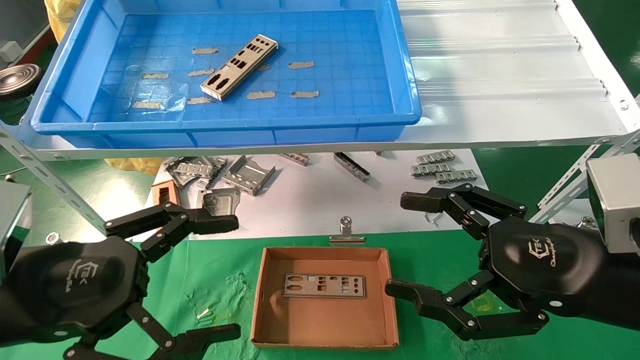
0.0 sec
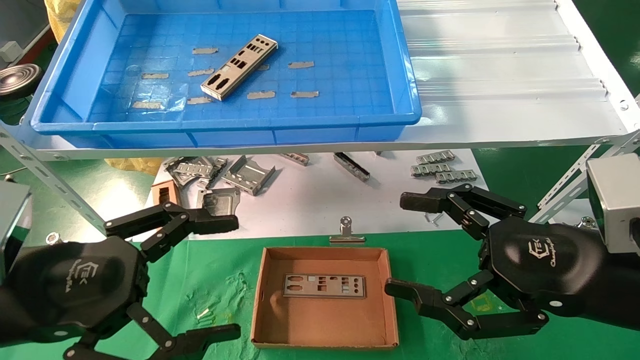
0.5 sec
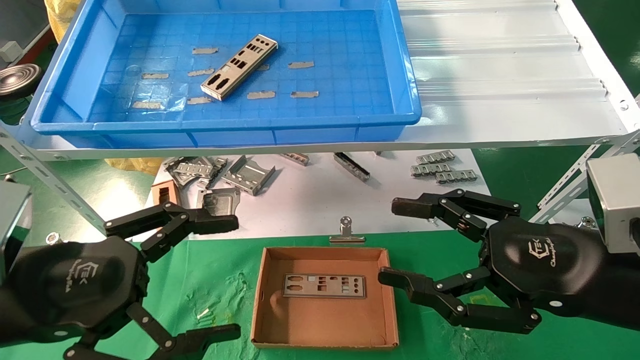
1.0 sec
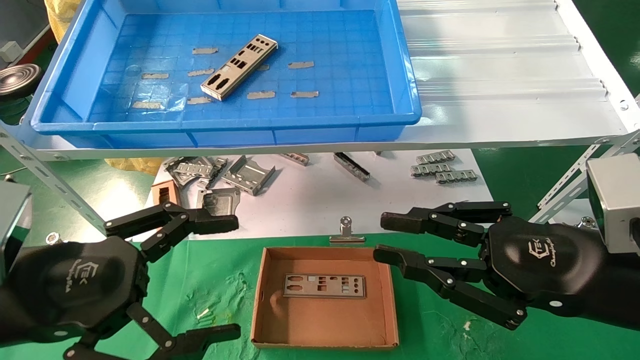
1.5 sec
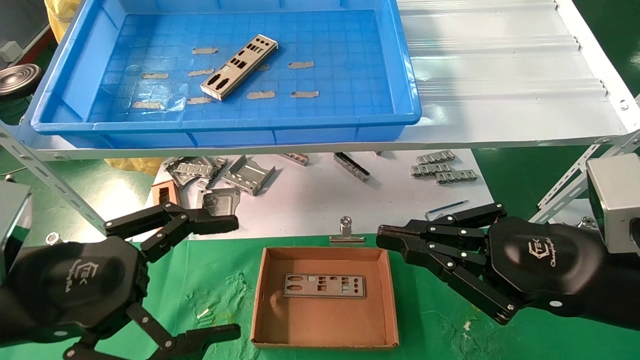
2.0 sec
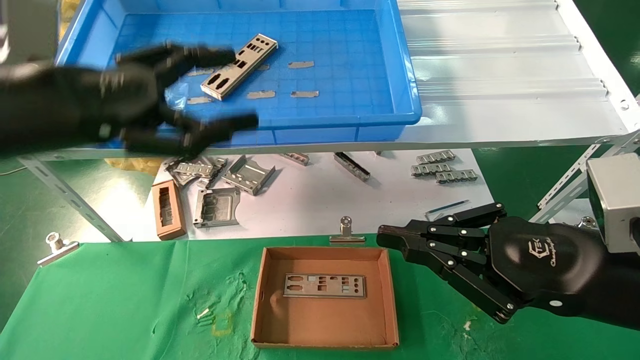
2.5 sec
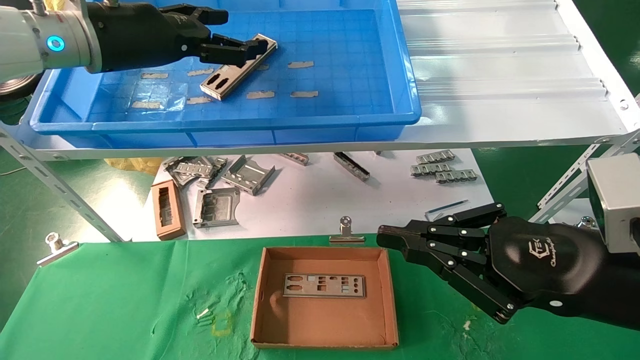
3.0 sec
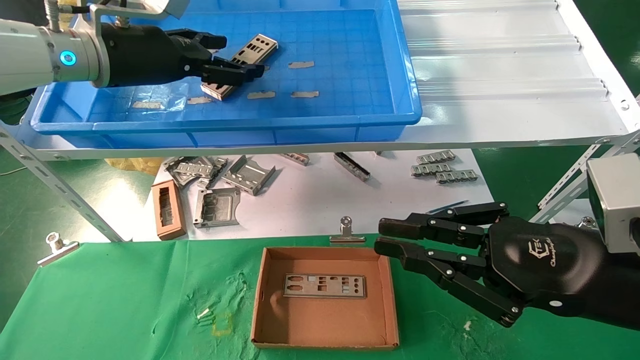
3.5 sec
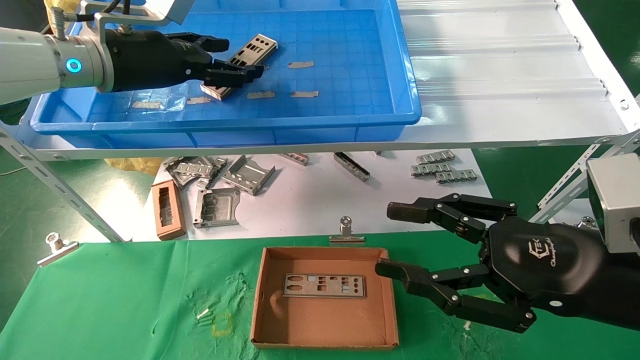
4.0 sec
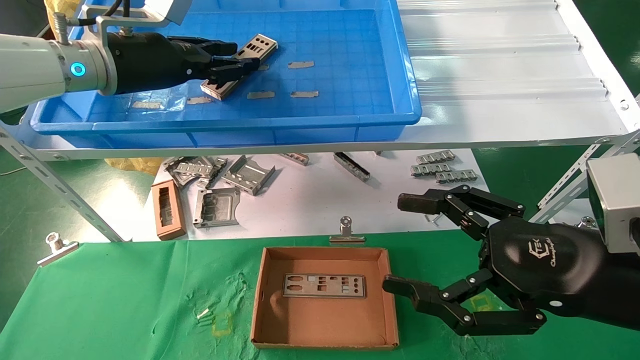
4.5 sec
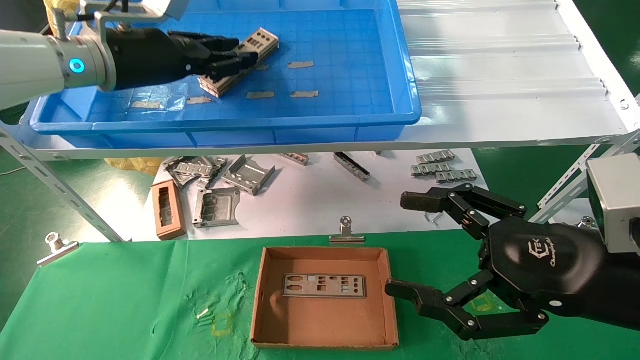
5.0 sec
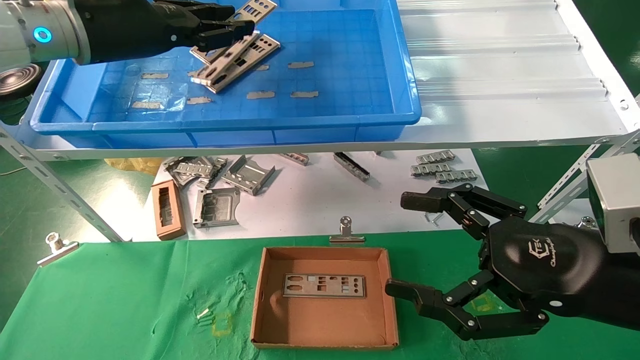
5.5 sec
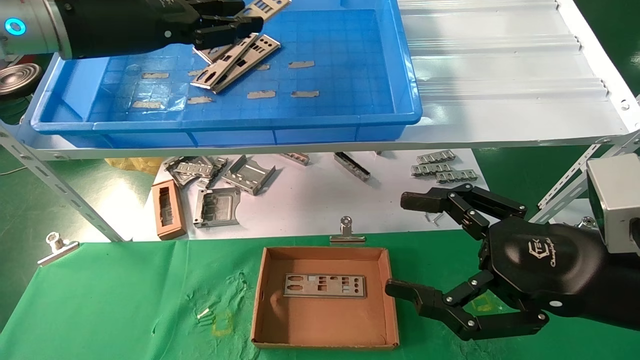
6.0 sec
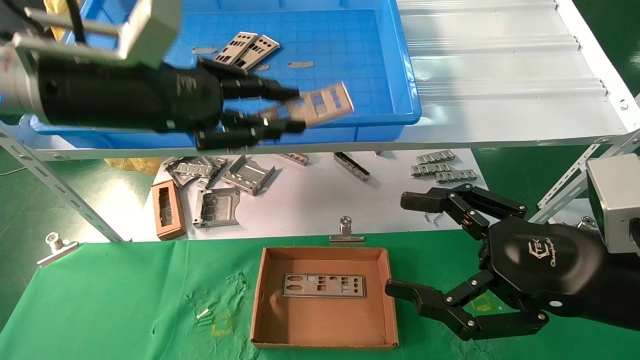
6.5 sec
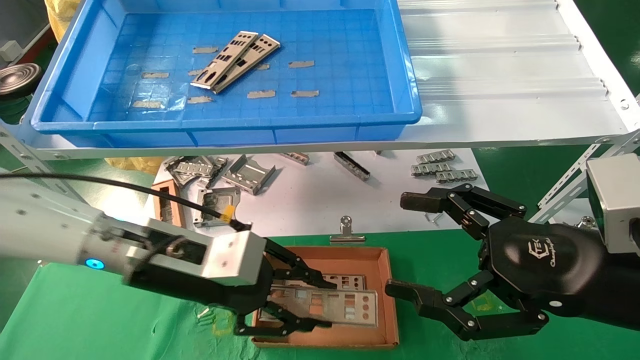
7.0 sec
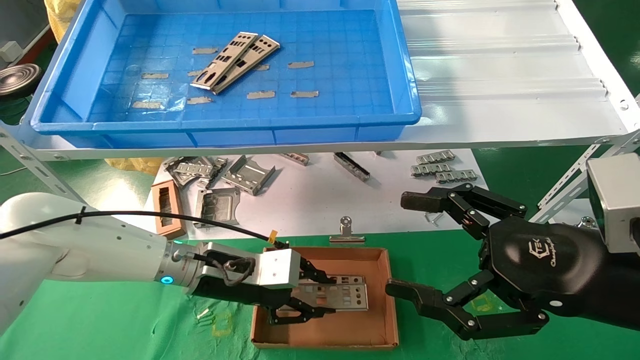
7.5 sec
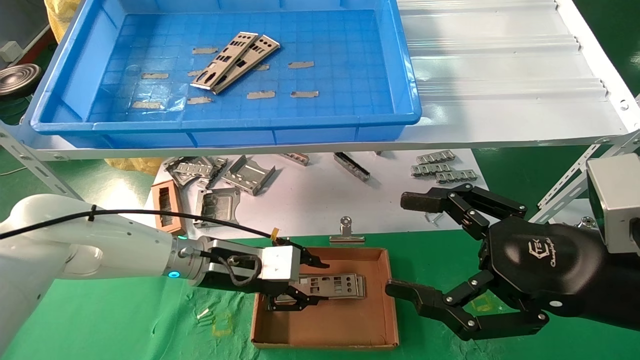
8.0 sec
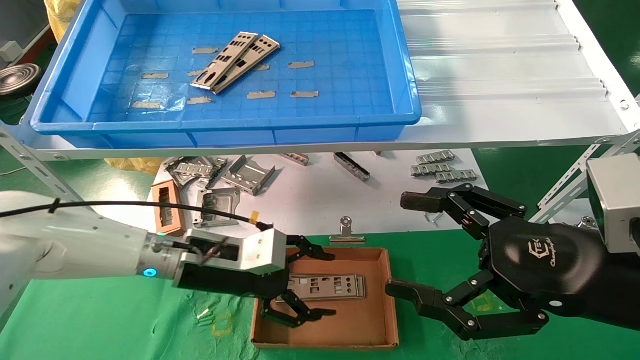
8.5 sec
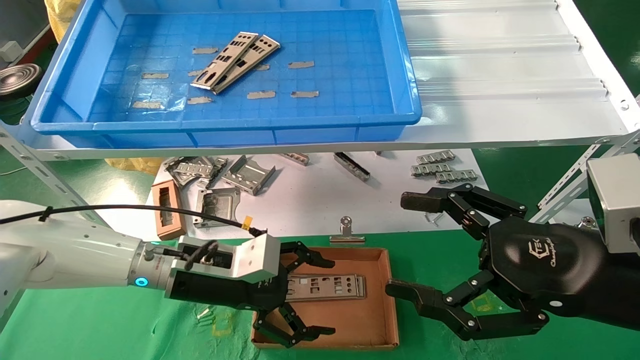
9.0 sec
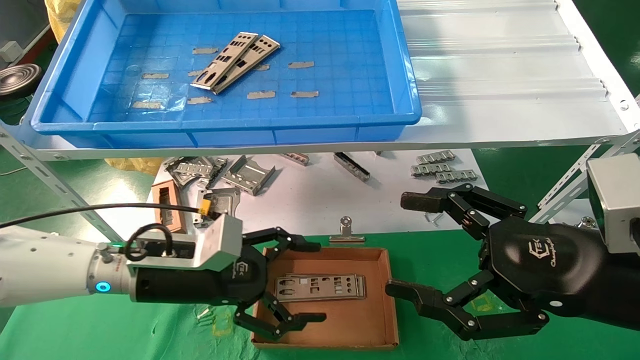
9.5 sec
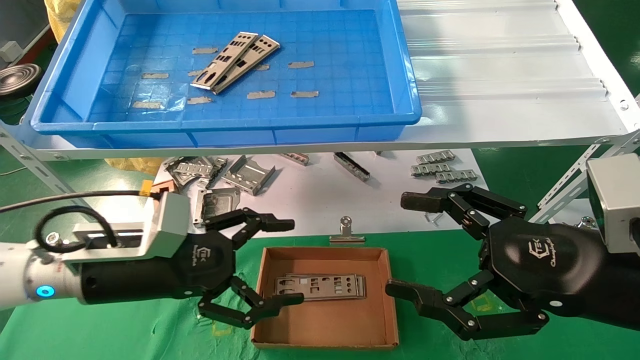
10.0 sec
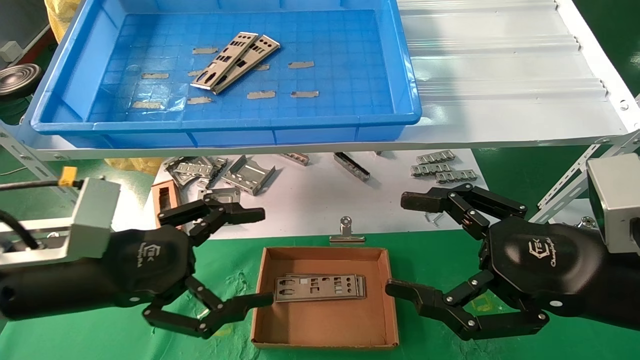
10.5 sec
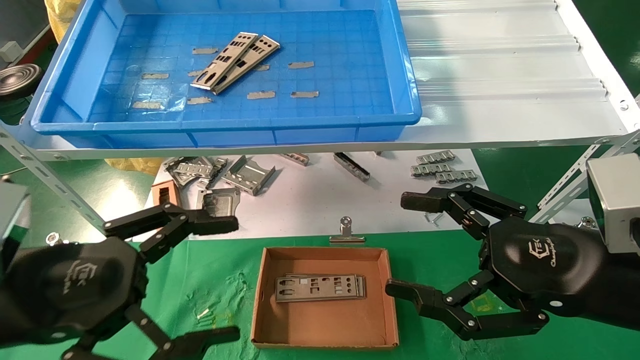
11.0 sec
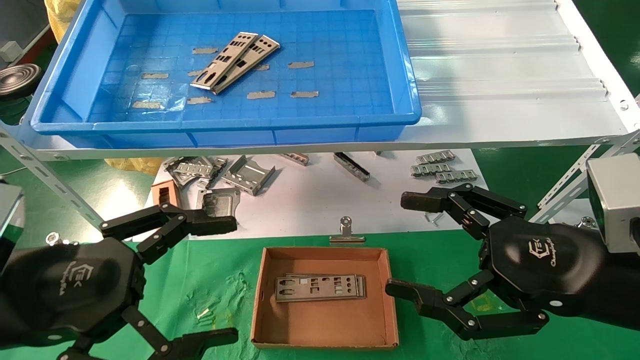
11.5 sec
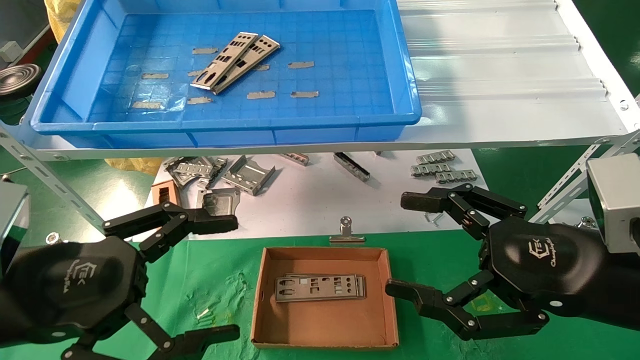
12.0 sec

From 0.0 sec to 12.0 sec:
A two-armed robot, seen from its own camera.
Task of the whole recording: pick up the parts on the tray and put them in the cardboard box.
Step, from 2.5 sec to 4.5 sec: Pick up the IO bracket from the container box.
Step, from 5.0 sec to 7.5 sec: Place the IO bracket into the ingredient slot.
From 0.0 sec to 2.0 sec: The right gripper closes up.
From 2.0 sec to 4.0 sec: The left gripper is displaced forward and upward by some 25 cm, while the right gripper opens up.
From 4.0 sec to 6.0 sec: The left gripper goes some 5 cm backward, and closes its fingers. The right gripper opens.
From 6.0 sec to 8.0 sec: The left gripper shifts approximately 30 cm downward.
From 8.0 sec to 10.0 sec: The left gripper heads backward, to the left and upward, covering approximately 15 cm, and opens.
From 10.0 sec to 12.0 sec: The left gripper is displaced backward by some 10 cm.

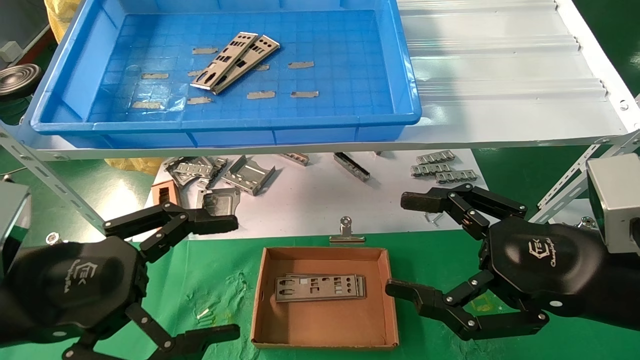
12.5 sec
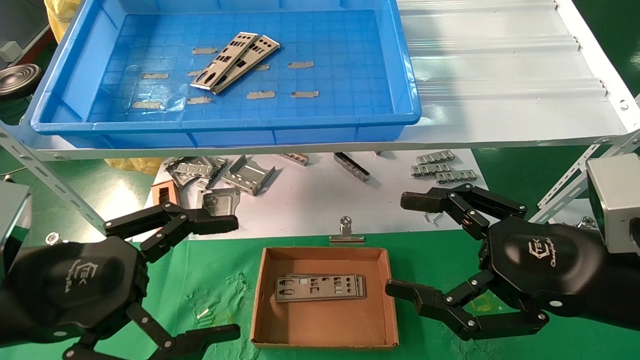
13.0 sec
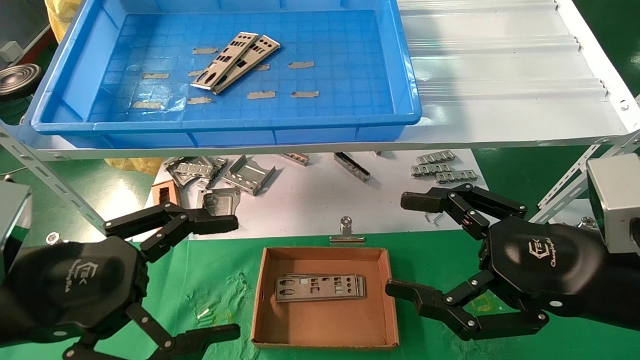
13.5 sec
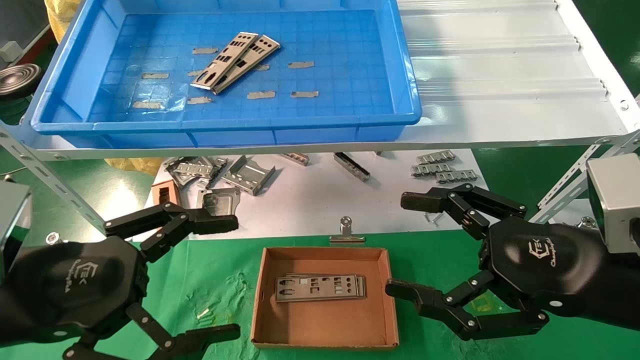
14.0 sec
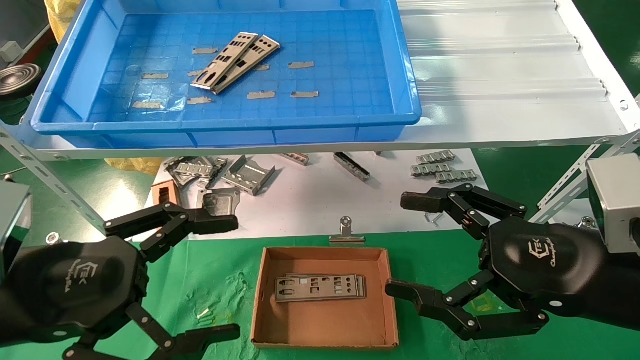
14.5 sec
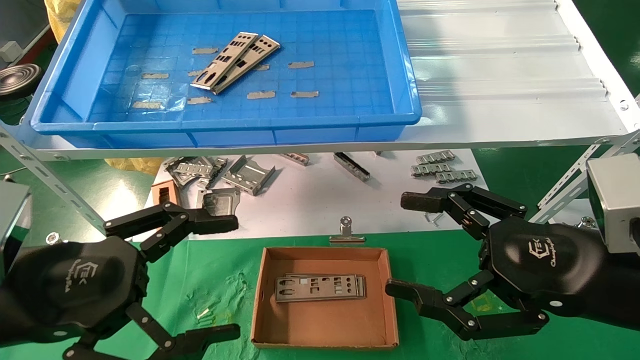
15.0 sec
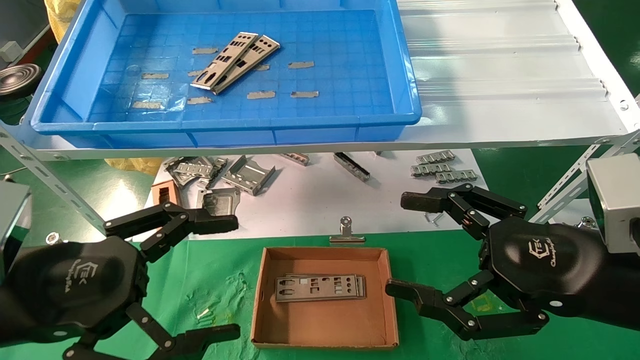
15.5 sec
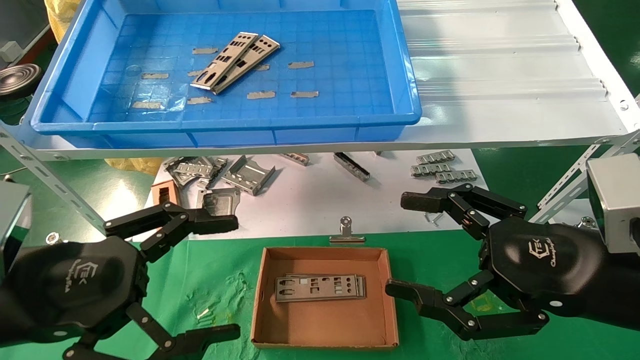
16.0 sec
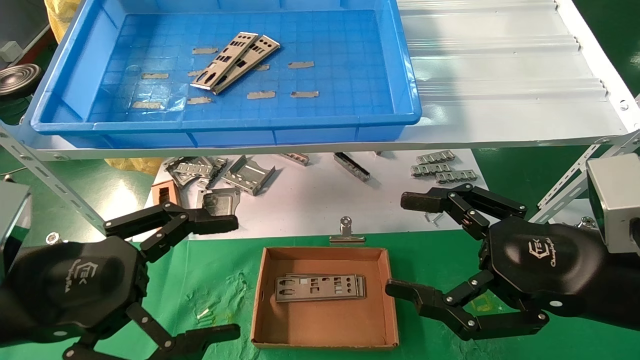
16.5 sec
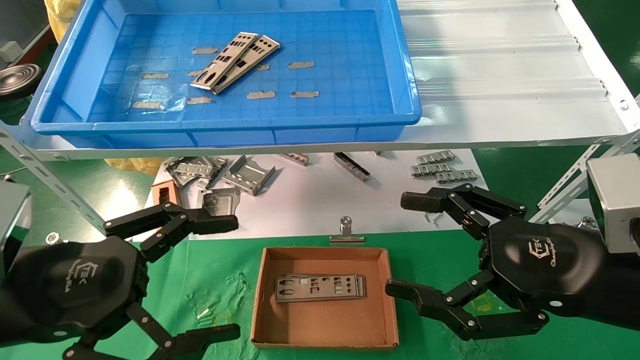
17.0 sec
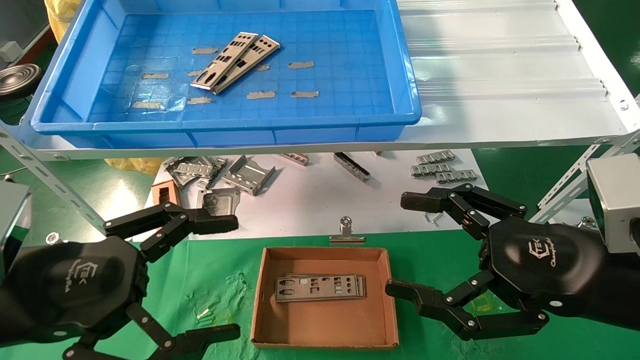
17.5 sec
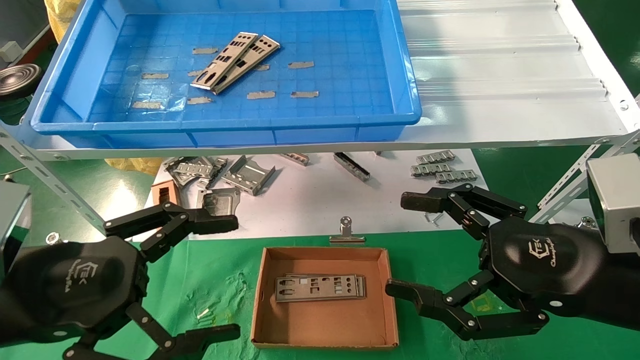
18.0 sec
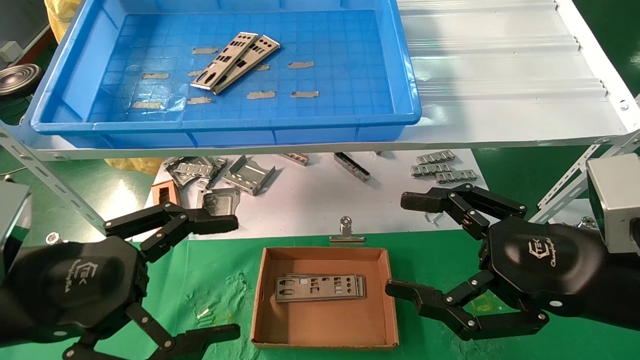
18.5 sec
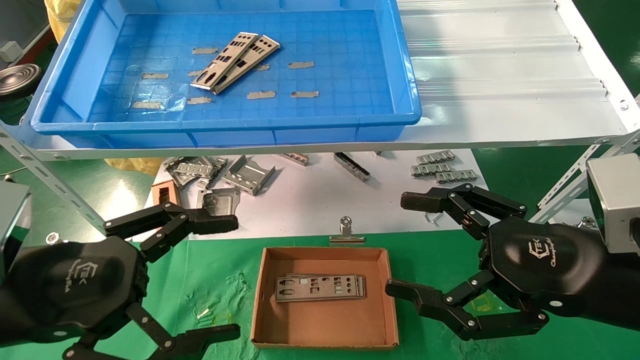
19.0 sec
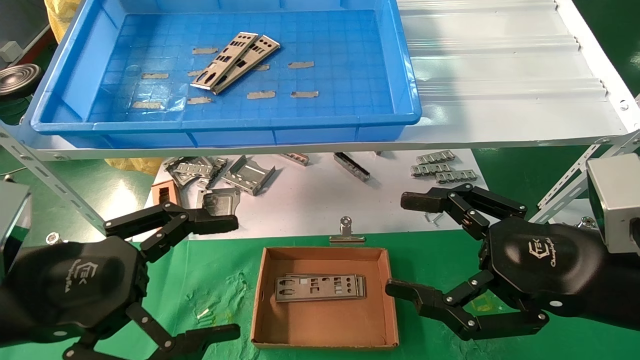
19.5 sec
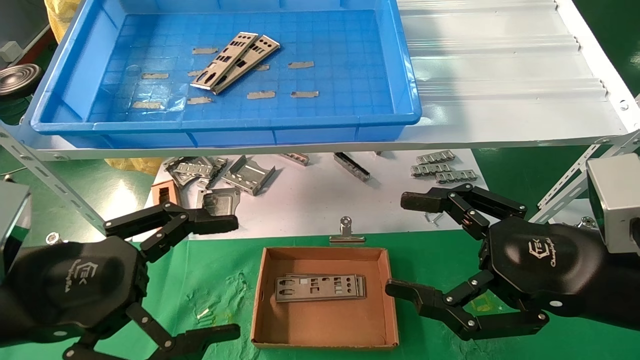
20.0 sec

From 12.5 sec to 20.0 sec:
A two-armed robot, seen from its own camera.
Task of the whole recording: pick up the parts on the tray and put them in the cardboard box.
From 12.5 sec to 20.0 sec: Both grippers stay put.
